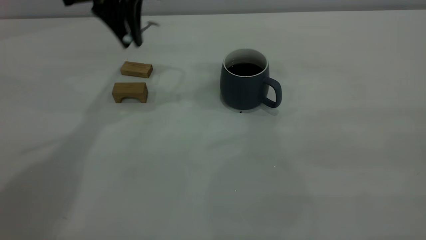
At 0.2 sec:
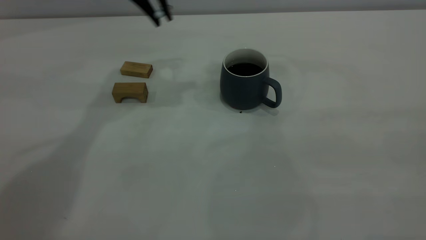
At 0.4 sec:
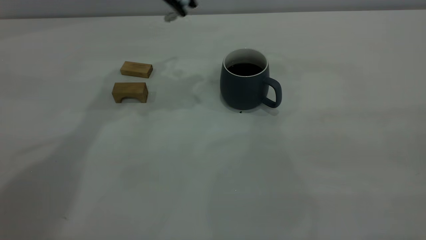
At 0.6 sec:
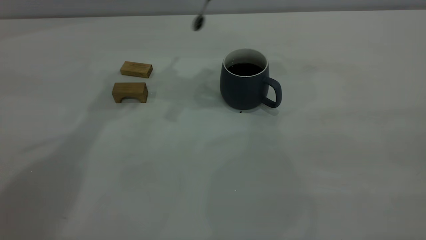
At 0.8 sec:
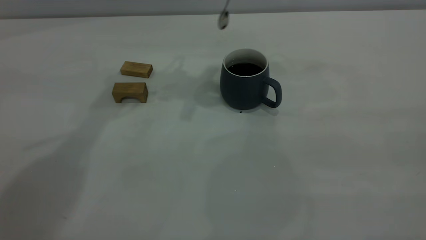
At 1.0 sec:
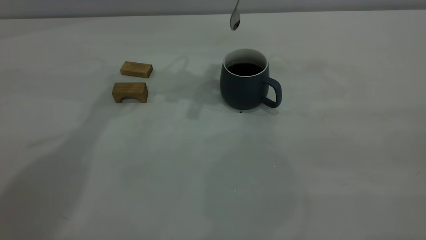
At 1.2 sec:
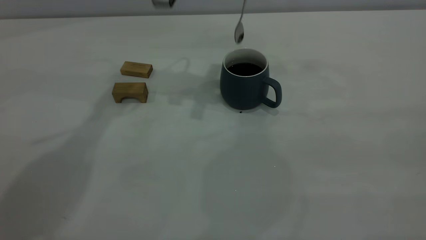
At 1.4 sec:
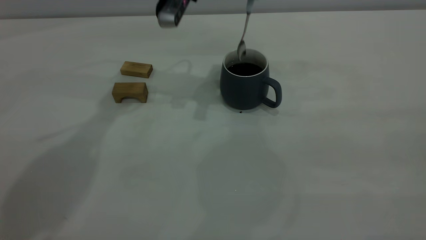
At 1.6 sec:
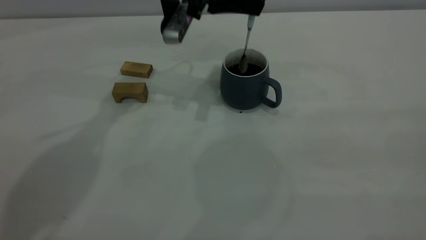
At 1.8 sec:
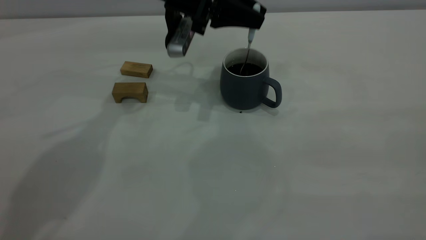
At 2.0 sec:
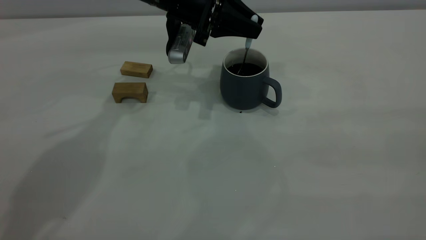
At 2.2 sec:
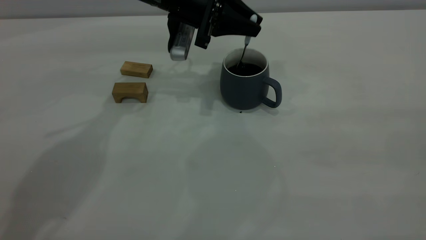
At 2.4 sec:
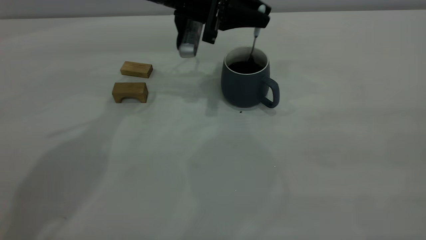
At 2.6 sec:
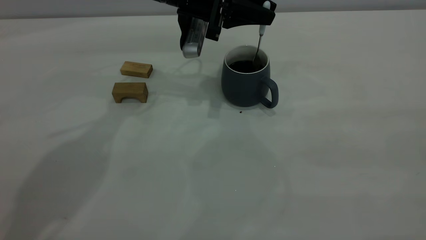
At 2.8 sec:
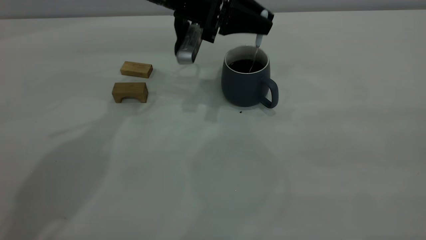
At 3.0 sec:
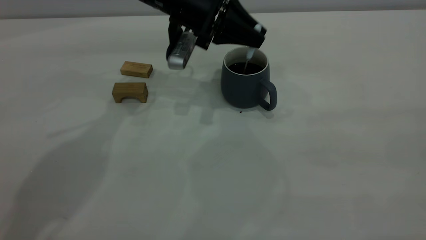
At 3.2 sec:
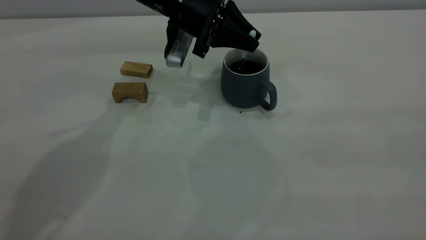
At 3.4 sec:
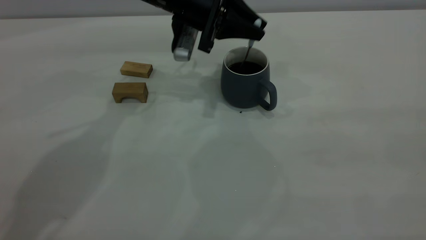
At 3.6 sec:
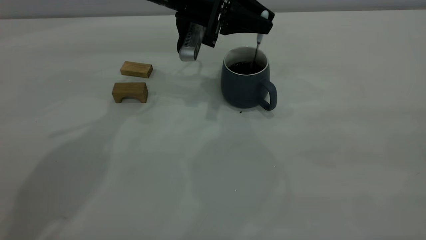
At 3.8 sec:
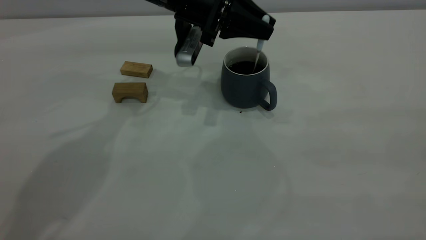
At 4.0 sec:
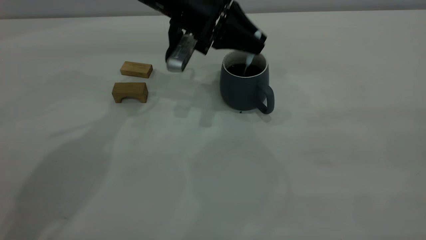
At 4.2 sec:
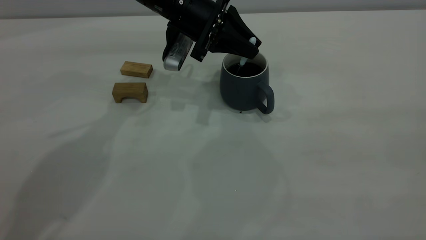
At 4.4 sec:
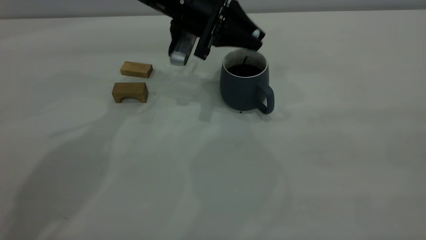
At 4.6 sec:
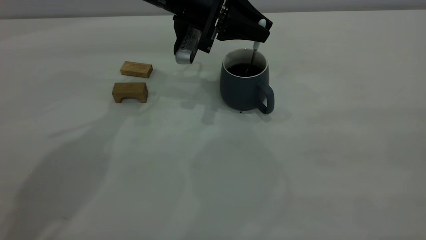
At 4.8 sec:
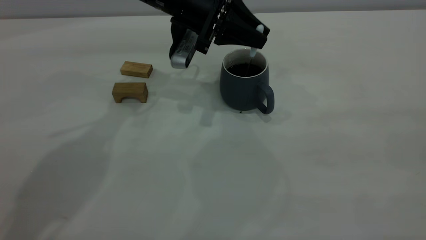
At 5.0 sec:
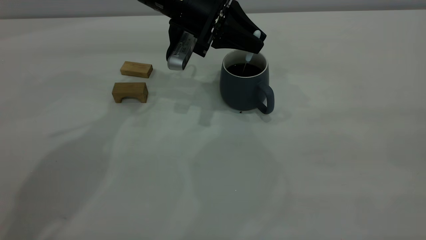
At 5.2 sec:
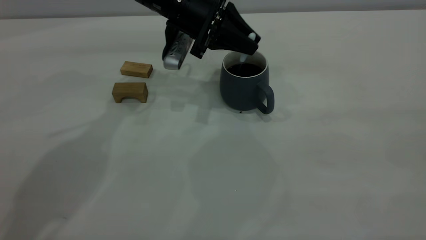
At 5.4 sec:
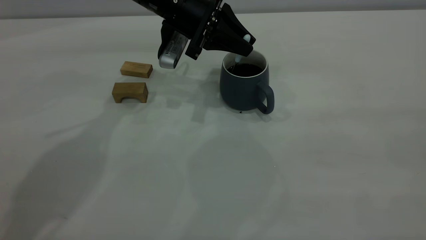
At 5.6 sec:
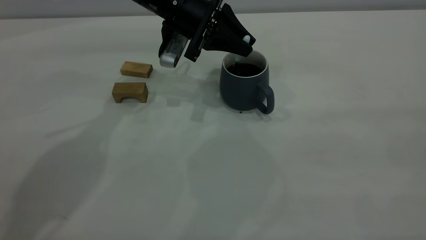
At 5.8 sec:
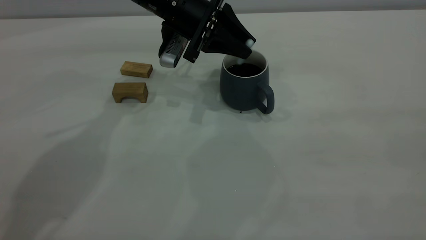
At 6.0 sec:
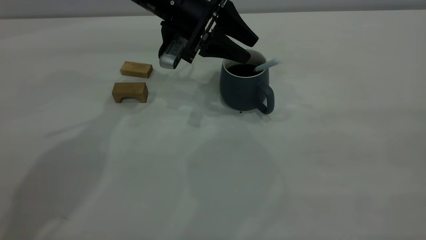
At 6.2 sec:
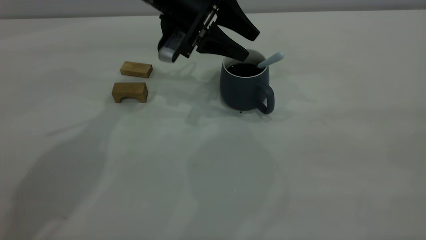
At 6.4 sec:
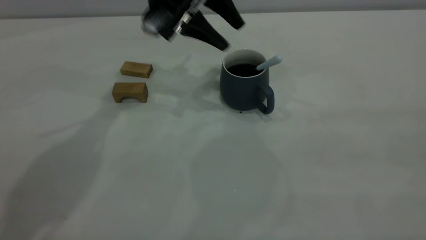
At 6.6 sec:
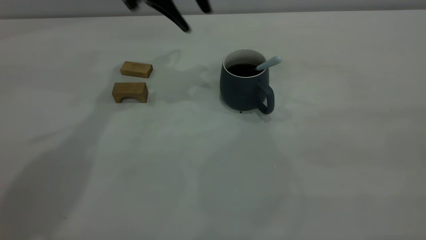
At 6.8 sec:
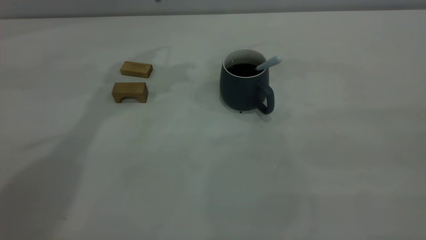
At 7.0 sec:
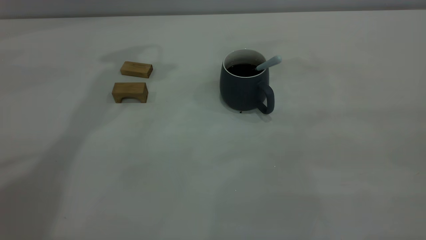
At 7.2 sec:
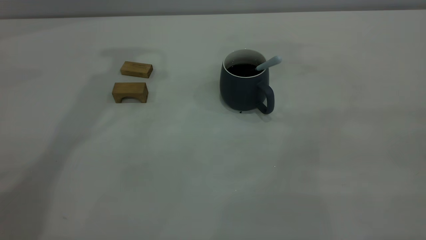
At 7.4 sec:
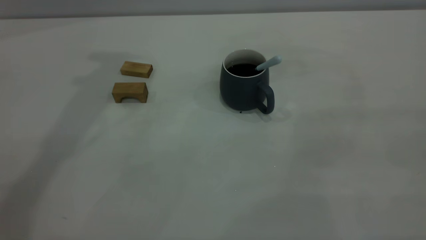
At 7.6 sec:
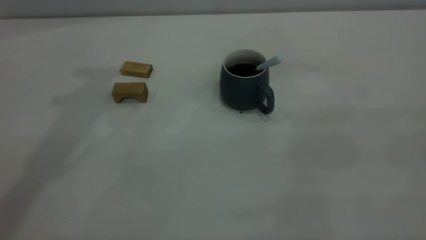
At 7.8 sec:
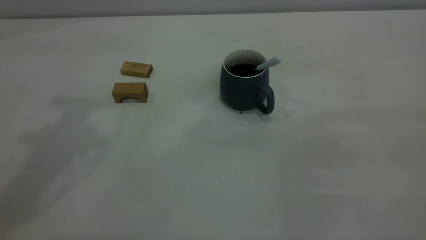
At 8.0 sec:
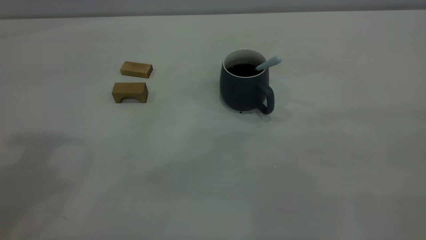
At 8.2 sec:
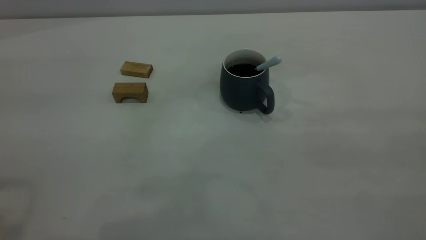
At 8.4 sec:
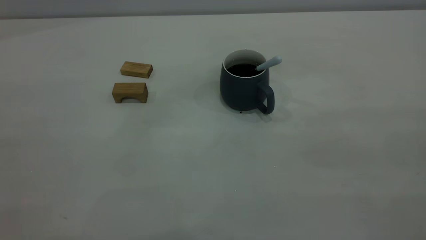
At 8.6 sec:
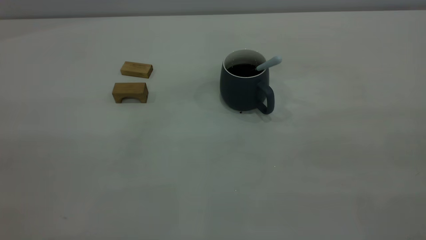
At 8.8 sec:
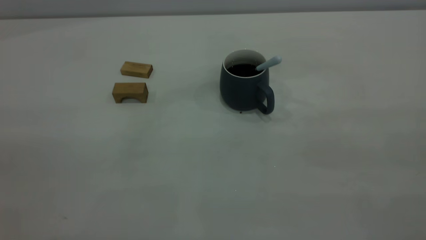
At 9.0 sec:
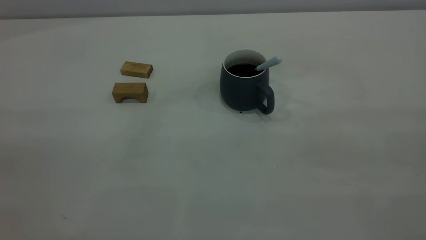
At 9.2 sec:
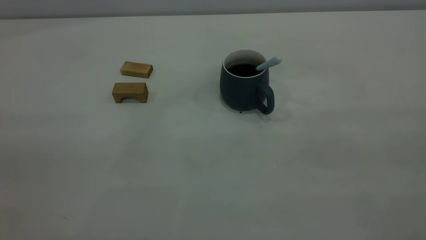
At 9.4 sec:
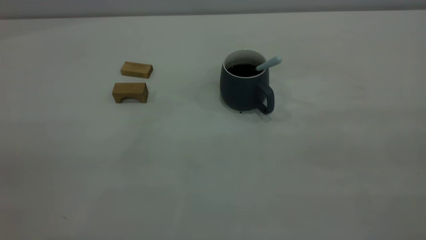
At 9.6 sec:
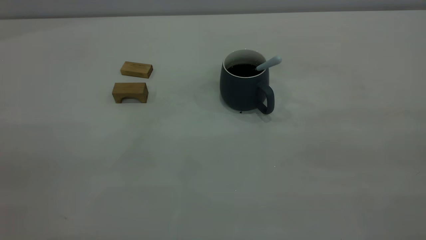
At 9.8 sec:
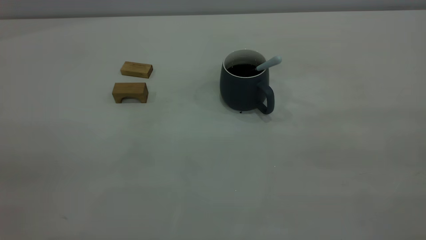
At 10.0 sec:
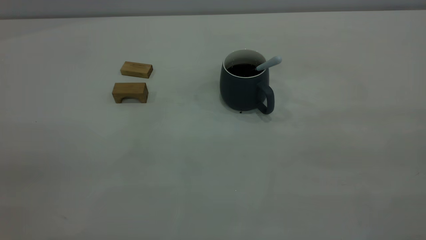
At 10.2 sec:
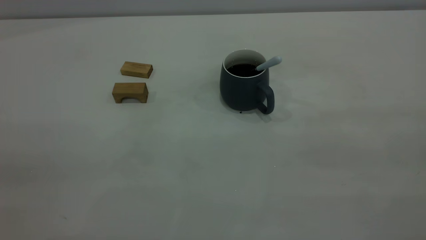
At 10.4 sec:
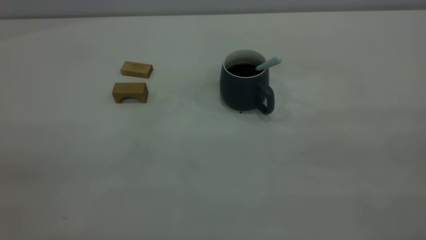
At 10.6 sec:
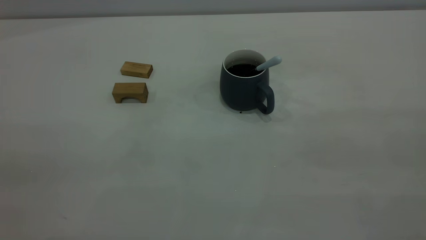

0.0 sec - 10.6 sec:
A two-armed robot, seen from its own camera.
Step, 0.0 sec - 6.4 sec: Stir the coffee in the cup.
0.0 sec - 1.6 sec: The left gripper goes approximately 10 cm to the right and downward.
1.6 sec - 4.6 sec: The grippers move only a little.
4.6 sec - 6.0 sec: The left gripper opens up.
6.0 sec - 7.6 sec: The left gripper goes approximately 30 cm upward and to the left.
